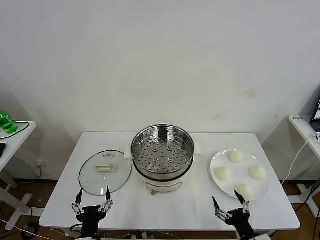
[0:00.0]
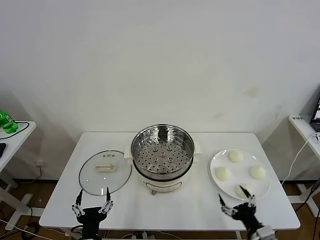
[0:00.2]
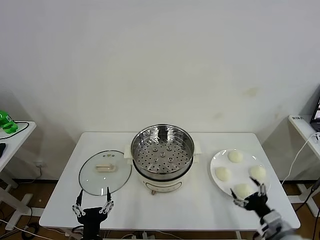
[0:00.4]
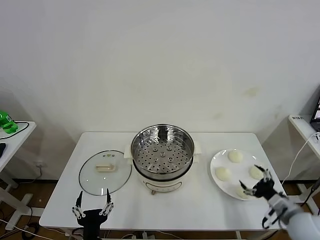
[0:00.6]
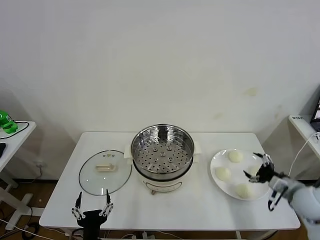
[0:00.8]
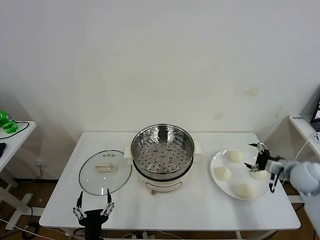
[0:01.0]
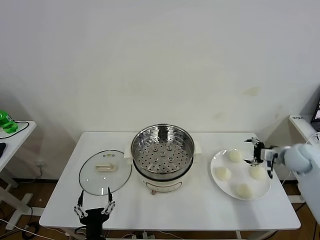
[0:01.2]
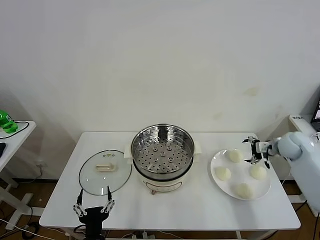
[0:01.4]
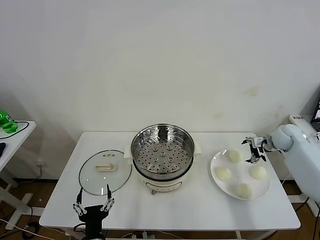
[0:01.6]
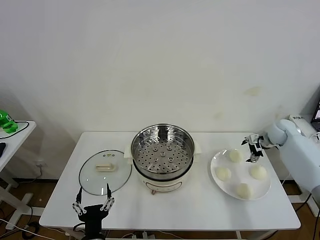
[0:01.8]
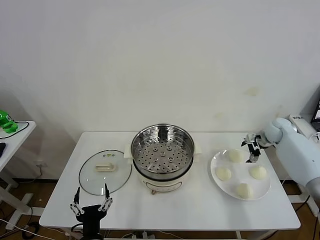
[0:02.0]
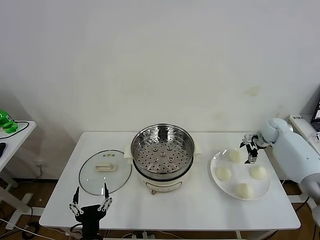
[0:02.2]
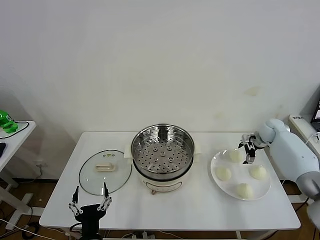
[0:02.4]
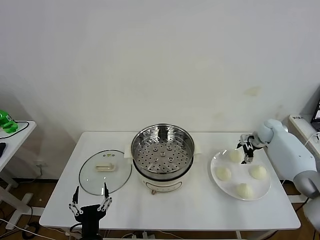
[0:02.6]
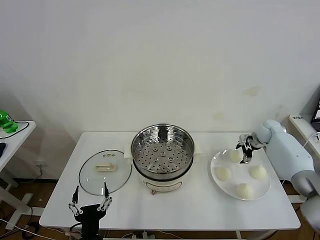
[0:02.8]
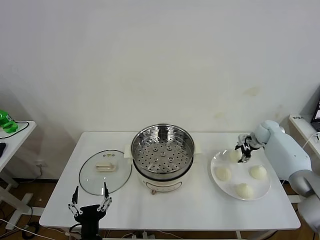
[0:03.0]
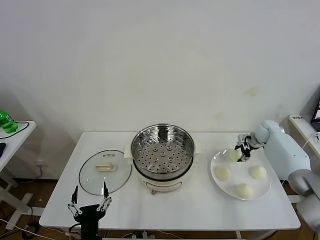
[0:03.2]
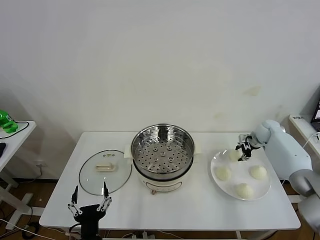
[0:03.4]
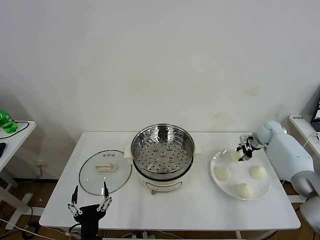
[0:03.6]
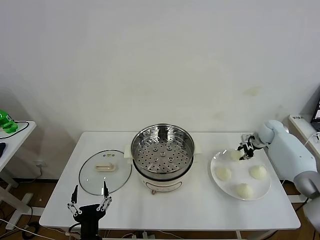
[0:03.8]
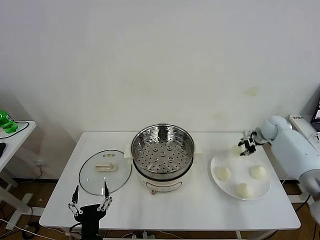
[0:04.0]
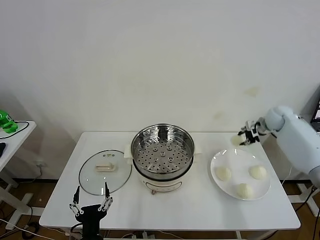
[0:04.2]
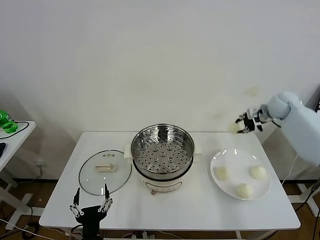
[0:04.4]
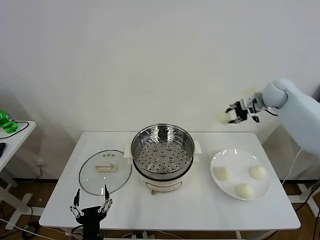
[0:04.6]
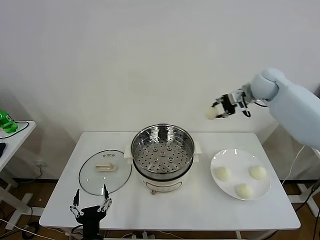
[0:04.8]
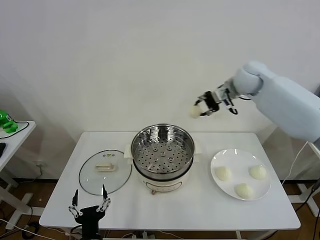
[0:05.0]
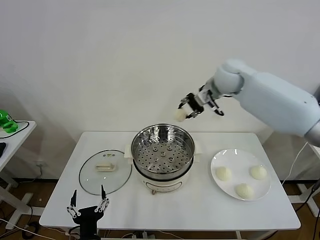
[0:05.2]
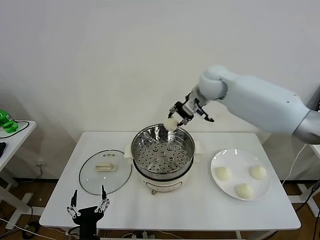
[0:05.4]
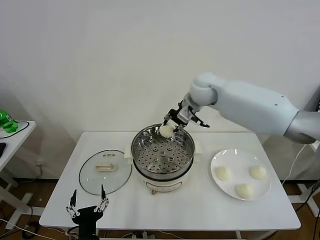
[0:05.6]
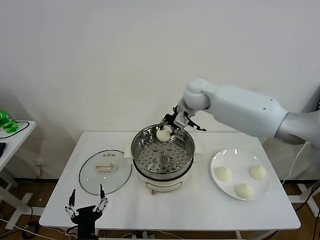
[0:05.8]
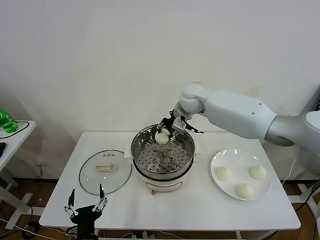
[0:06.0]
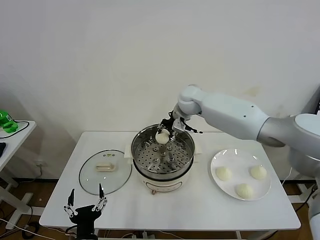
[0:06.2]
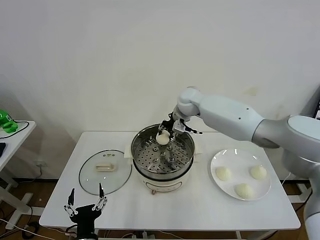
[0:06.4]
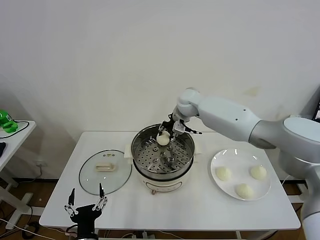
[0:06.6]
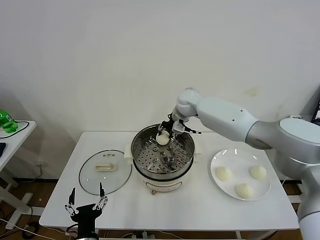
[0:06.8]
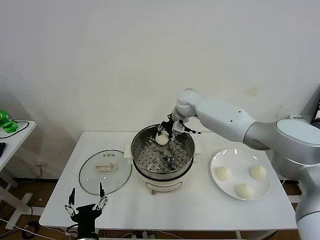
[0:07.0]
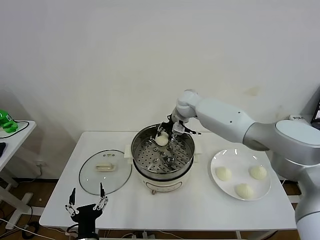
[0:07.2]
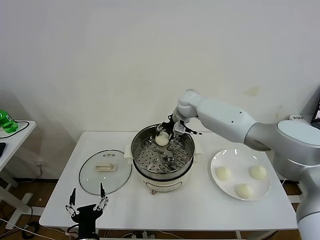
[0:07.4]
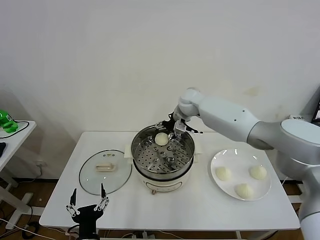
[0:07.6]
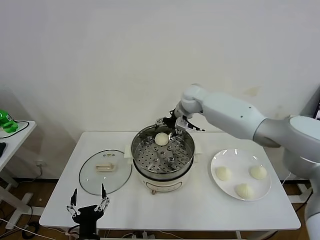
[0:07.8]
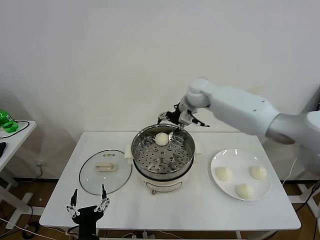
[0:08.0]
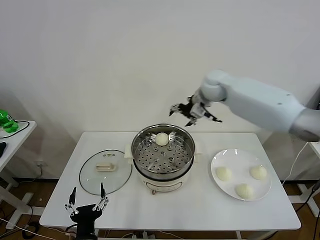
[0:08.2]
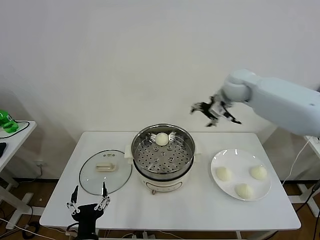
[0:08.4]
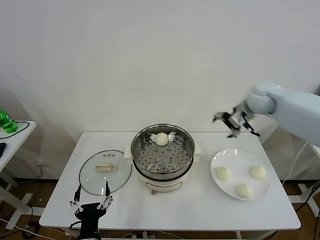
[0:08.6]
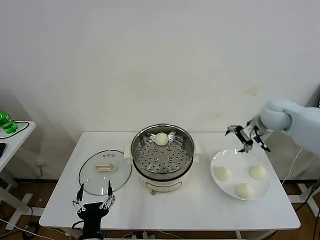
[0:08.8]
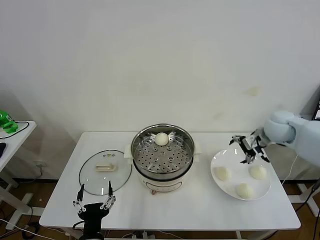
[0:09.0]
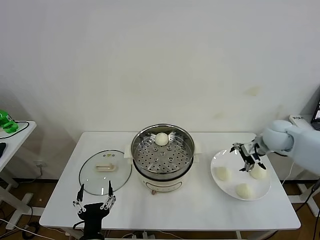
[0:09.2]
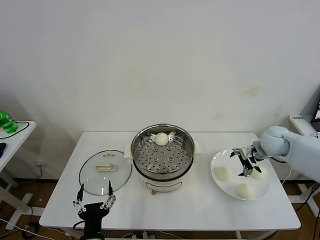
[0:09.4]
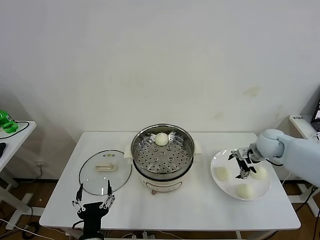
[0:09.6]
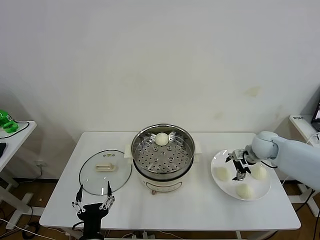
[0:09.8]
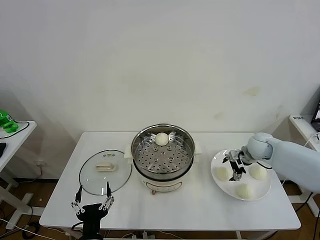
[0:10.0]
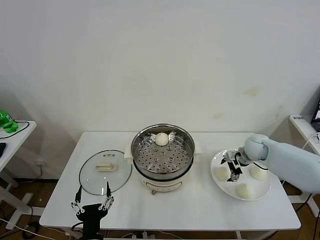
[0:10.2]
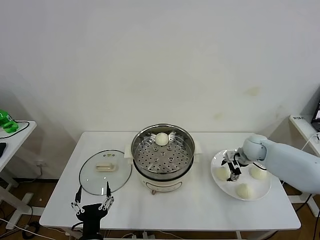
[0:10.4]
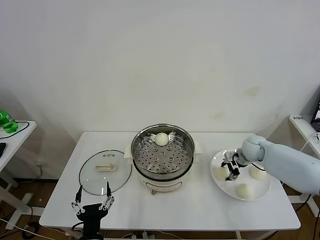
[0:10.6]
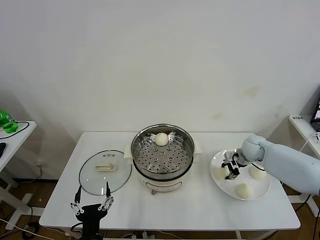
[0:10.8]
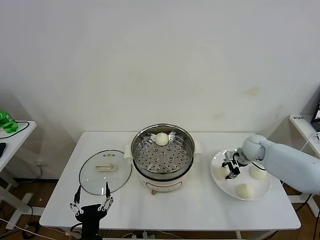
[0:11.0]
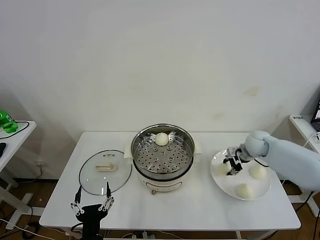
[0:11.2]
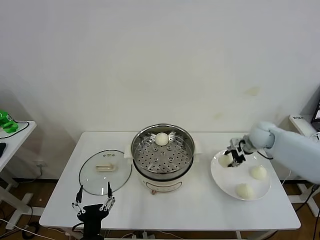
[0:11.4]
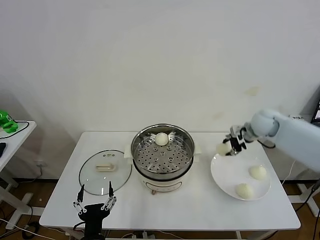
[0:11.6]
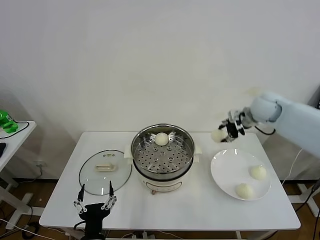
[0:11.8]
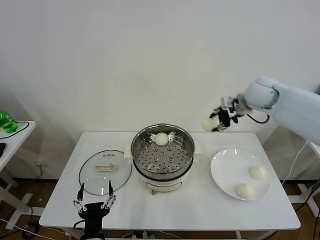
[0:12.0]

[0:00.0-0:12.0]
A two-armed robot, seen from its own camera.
Task of the whole recording: take steamed baozi put them in steamer then cover it.
Step, 0.0 to 3.8 s: Grasp the baozi in the plate with right gripper.
Step, 4.0 to 7.6 s: Place the baozi on the steamer with right gripper.
Step, 7.8 to 11.2 s: Grasp the baozi in the plate with right gripper.
1.6 to 3.0 s: The right gripper moves approximately 5 cm, and closes its fingers.
3.0 to 4.4 s: The right gripper heads upward, covering approximately 20 cm, and closes.
4.4 to 6.0 s: The right gripper shifts about 30 cm to the left.
6.0 to 7.6 s: The right gripper opens.
7.6 to 9.0 s: The right gripper is displaced to the right and backward by approximately 30 cm.
9.0 to 10.4 s: The right gripper is displaced downward by roughly 15 cm.
10.4 to 12.0 s: The right gripper is displaced upward by about 25 cm, and closes its fingers.

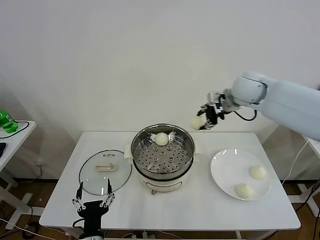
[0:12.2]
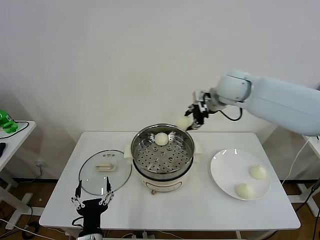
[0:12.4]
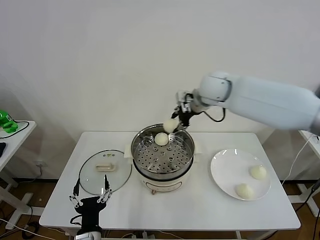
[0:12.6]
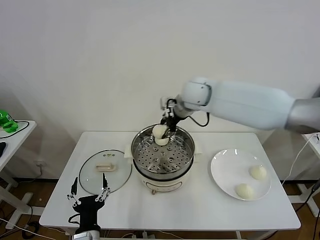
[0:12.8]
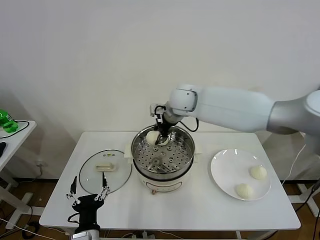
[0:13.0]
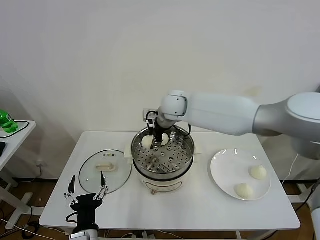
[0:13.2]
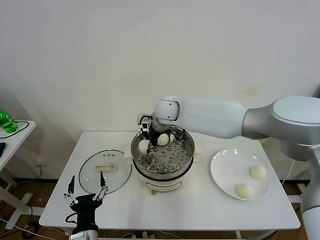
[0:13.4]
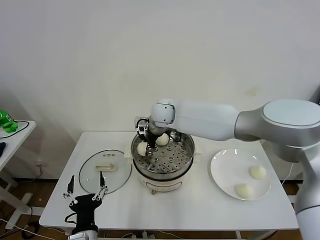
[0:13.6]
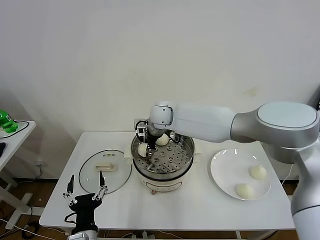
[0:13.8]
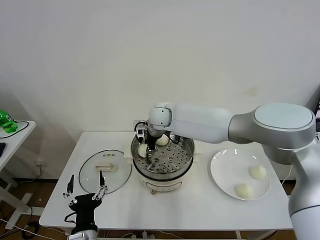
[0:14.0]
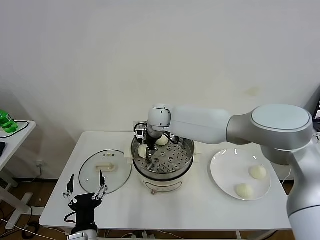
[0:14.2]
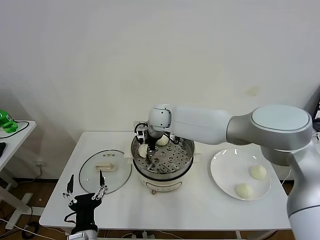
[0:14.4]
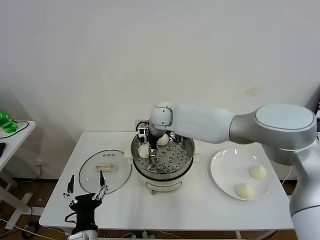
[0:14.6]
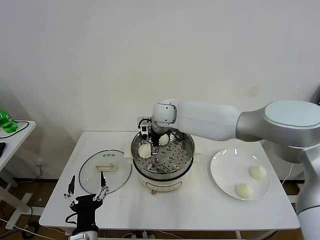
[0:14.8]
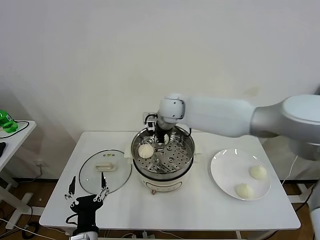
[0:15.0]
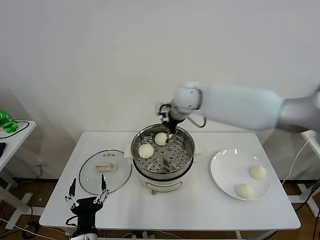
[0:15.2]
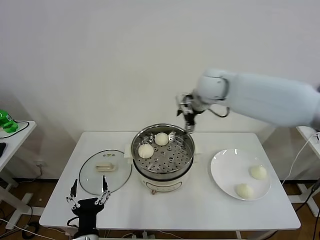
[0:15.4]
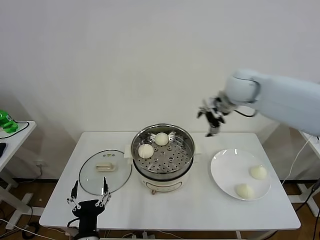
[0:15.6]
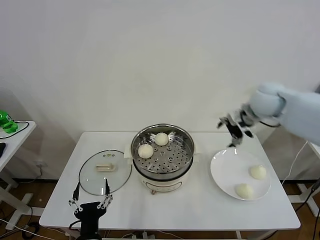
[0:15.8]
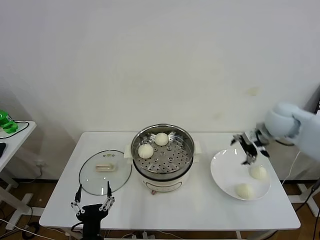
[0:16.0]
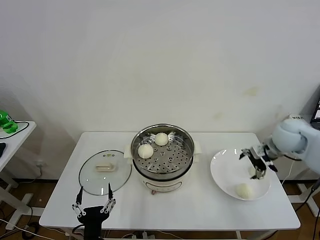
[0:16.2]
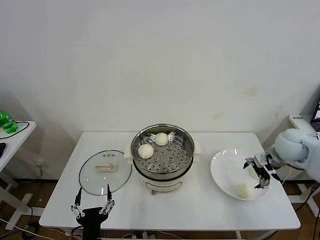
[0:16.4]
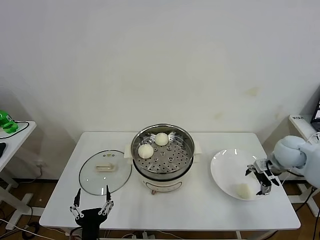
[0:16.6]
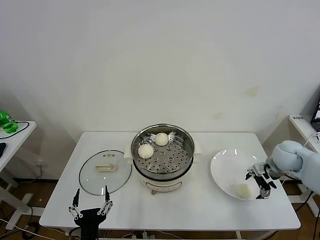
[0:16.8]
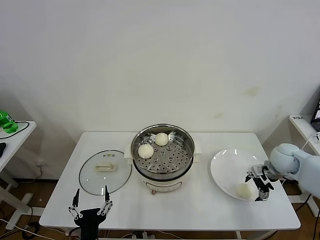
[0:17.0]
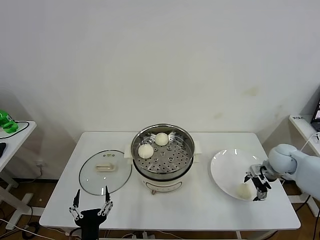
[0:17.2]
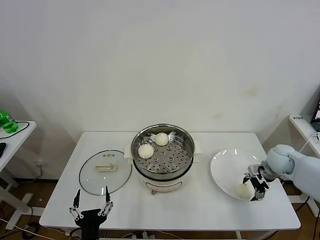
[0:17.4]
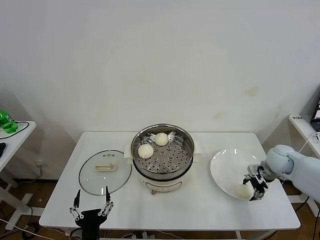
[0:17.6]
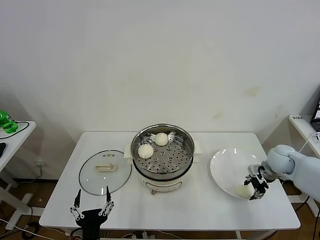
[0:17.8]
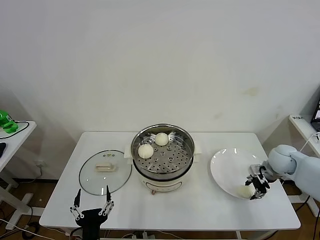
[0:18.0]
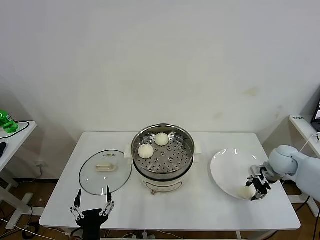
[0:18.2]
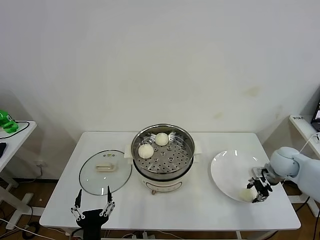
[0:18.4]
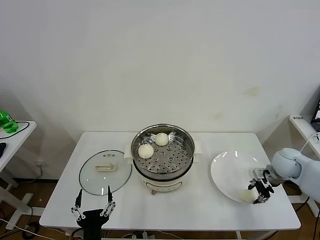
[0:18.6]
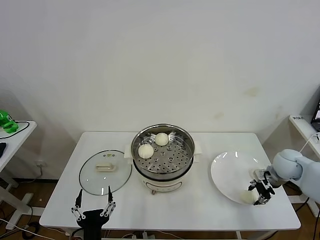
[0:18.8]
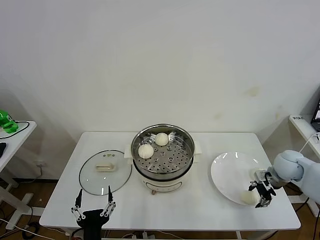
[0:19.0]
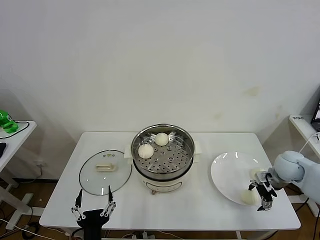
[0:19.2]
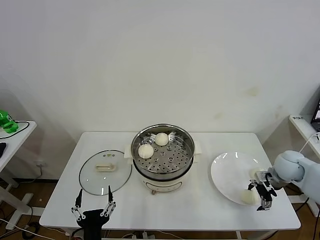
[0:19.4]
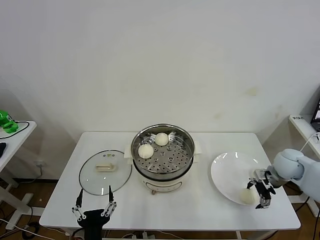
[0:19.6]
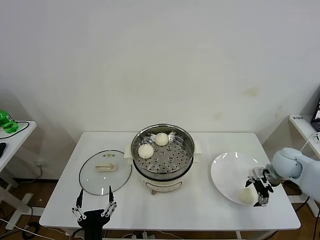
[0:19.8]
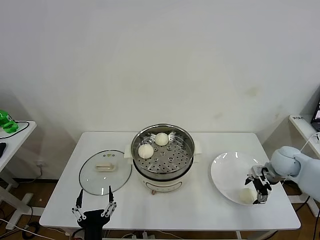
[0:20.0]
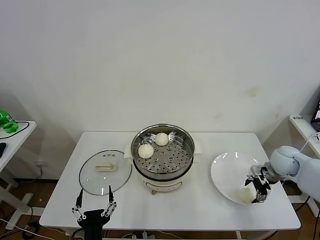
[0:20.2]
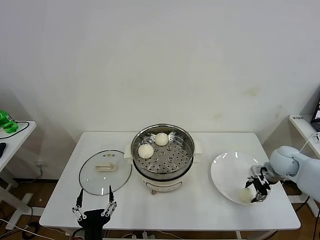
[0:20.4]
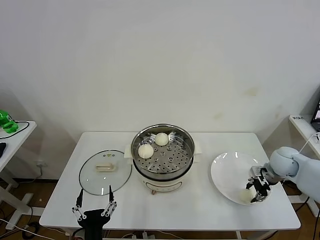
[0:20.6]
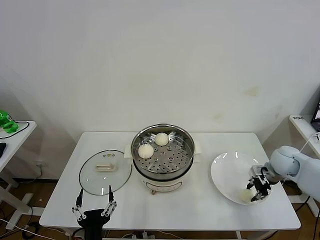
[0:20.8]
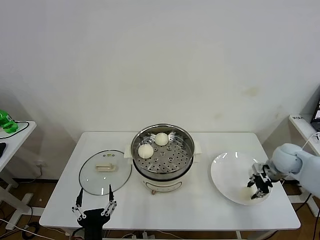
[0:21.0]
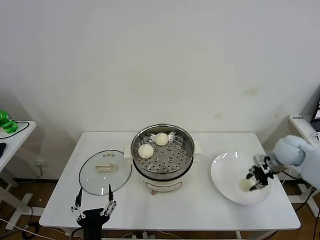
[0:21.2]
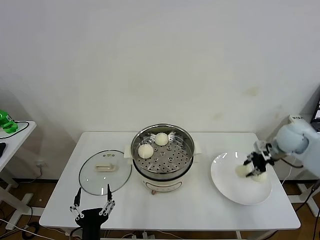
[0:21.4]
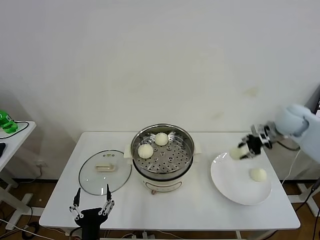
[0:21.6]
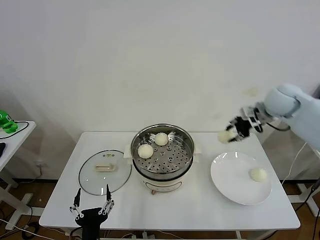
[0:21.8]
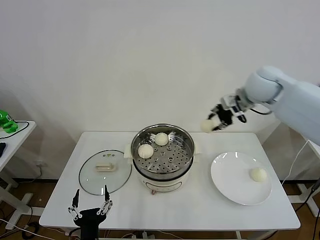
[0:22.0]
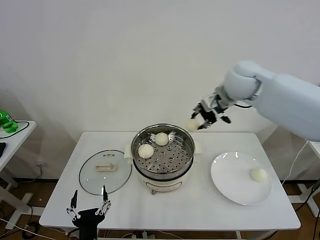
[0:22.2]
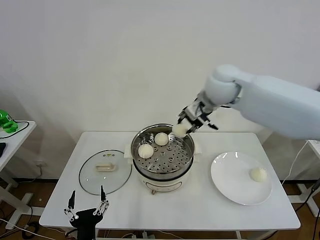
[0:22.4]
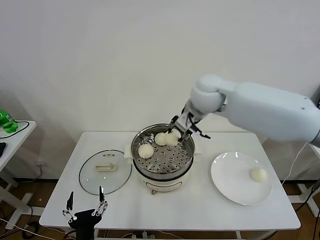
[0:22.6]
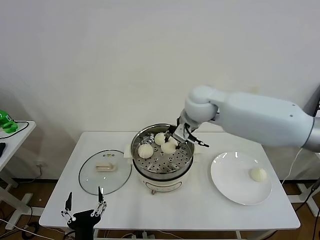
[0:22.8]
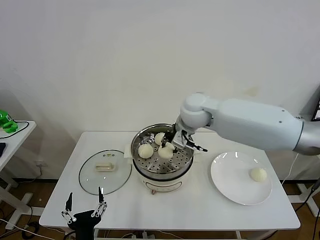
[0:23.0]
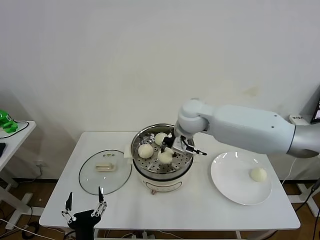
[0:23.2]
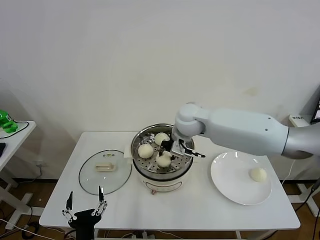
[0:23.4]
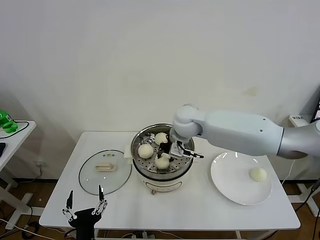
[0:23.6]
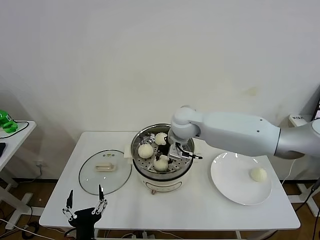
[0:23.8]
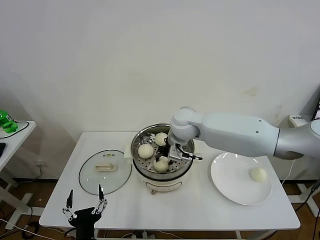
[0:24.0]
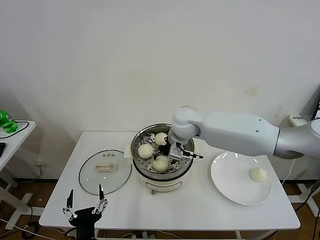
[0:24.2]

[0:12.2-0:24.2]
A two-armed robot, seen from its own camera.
Task of the whole recording: take steamed baozi put them in steamer then cover it.
Step, 12.2 to 14.6 s: Place the baozi on the steamer with right gripper.
Step, 14.8 to 20.8 s: Grasp the baozi in the plate with right gripper.
Step, 21.2 to 24.2 s: Place the baozi on the steamer with right gripper.
12.2 to 13.8 s: The right gripper moves to the left and downward, approximately 25 cm.
13.8 to 15.2 s: The right gripper shifts some 15 cm to the right and upward, and opens up.
15.2 to 16.6 s: The right gripper travels to the right and downward by about 35 cm.
16.6 to 18.2 s: The right gripper closes.
18.2 to 19.8 s: The right gripper opens up.
19.8 to 21.2 s: The right gripper moves approximately 5 cm, and closes up.
21.2 to 22.6 s: The right gripper moves to the left and upward, approximately 35 cm.
22.6 to 24.2 s: The right gripper shifts some 10 cm downward, and opens up.
